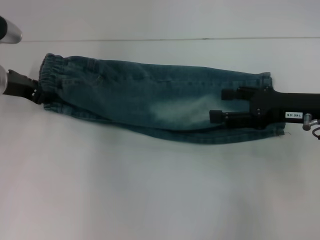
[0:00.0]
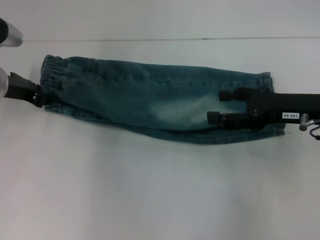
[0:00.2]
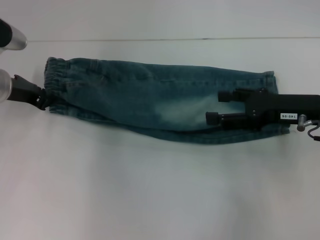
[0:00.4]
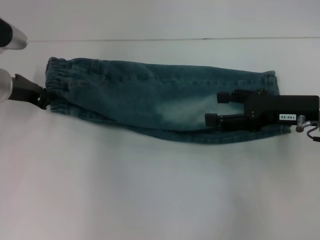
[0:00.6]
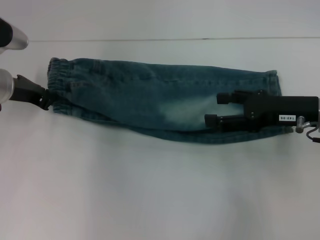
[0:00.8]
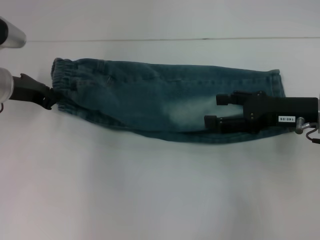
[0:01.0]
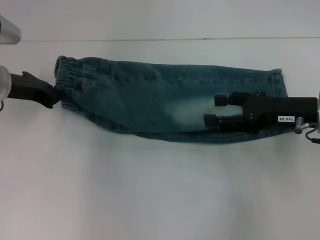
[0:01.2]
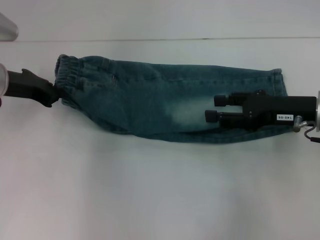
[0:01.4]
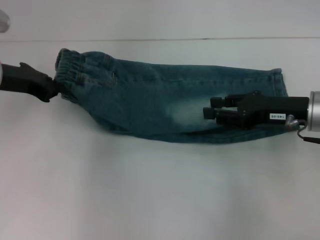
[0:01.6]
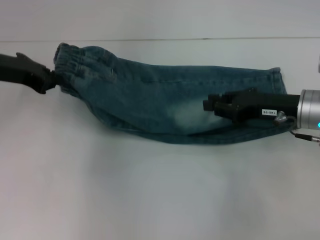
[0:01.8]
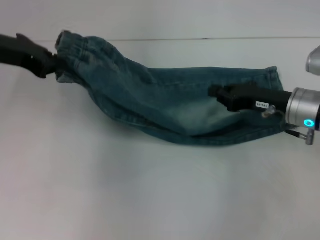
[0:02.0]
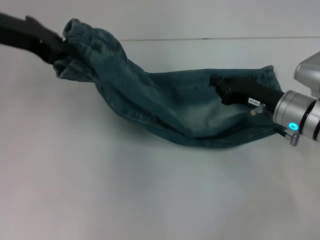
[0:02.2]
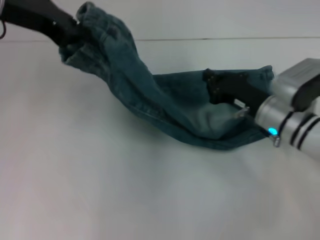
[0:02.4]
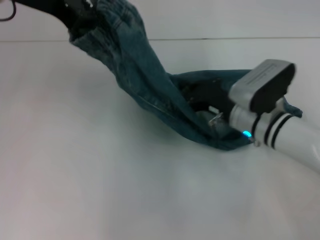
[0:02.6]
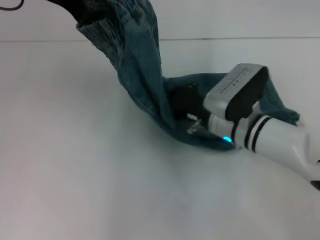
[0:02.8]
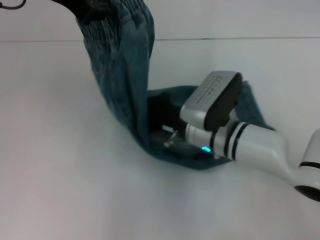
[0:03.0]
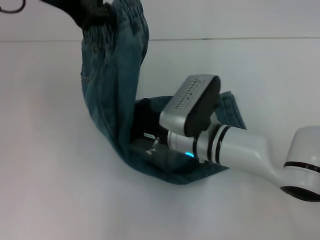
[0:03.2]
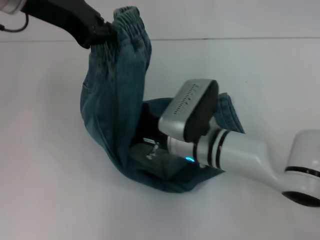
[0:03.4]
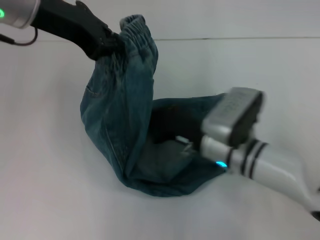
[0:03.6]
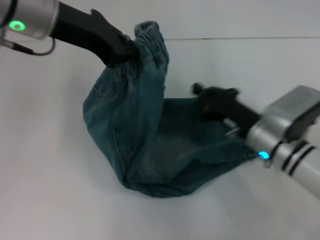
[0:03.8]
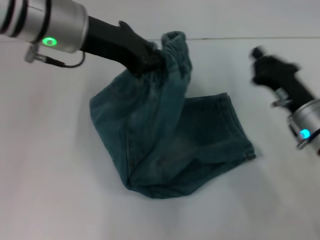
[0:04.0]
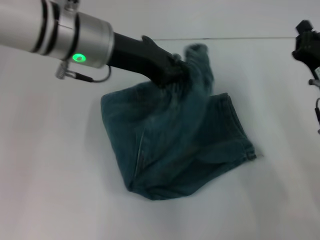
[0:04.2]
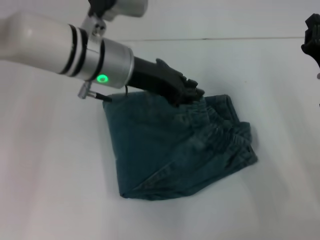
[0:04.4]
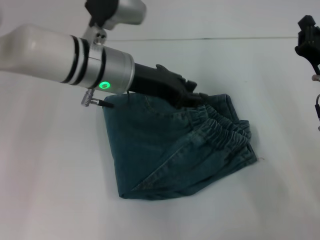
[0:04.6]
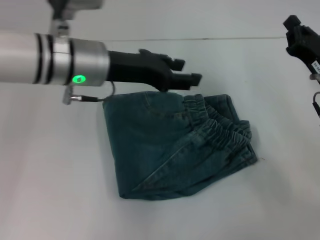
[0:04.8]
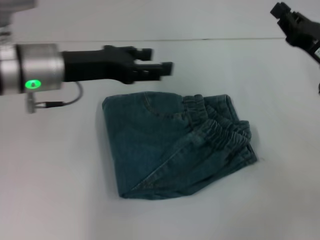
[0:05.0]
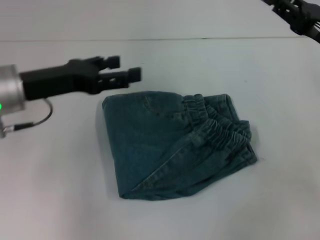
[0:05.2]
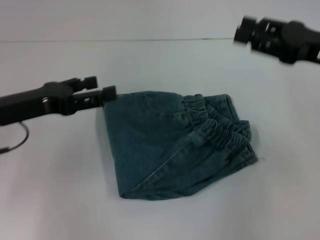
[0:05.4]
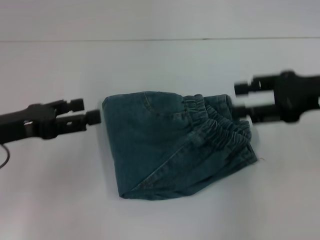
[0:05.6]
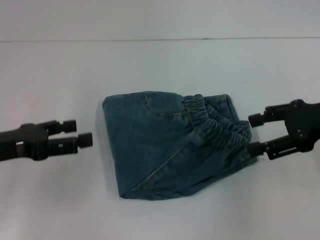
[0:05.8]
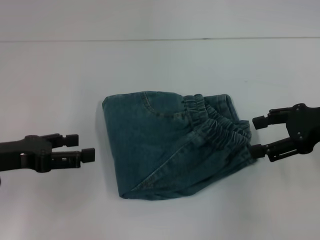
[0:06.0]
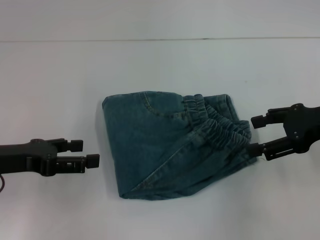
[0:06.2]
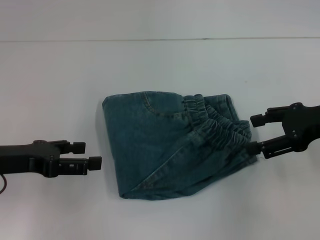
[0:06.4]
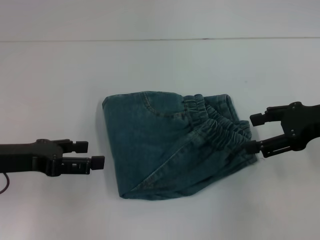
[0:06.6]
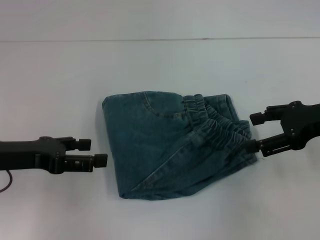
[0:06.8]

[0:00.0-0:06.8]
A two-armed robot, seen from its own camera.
Step, 0:00.0 to 0:03.4: Press the middle of the pants with your right hand.
Step, 0:03.6 to 0:04.2: Fold to the right with your left hand.
0:00.0 to 0:01.4: The left gripper closes its fingers.
0:01.4 to 0:02.8: The left gripper is displaced upward and to the right by some 20 cm; the right gripper travels to the left and downward by roughly 15 cm, and closes up.
0:02.8 to 0:04.0: The left gripper heads downward, covering roughly 5 cm. The right gripper moves to the right, roughly 10 cm.
0:04.0 to 0:05.4: The left gripper is displaced to the left, downward and backward by roughly 15 cm, and opens its fingers. The right gripper heads upward and to the right, covering approximately 15 cm.
0:05.4 to 0:06.8: The right gripper opens.
